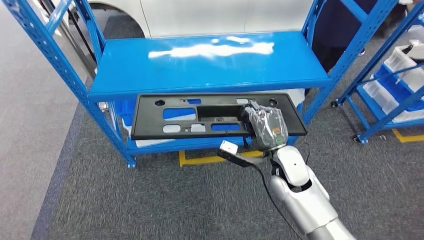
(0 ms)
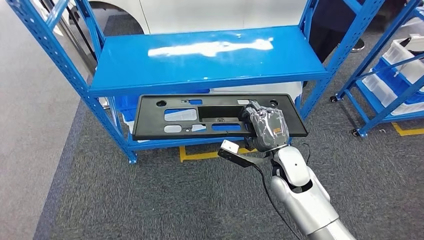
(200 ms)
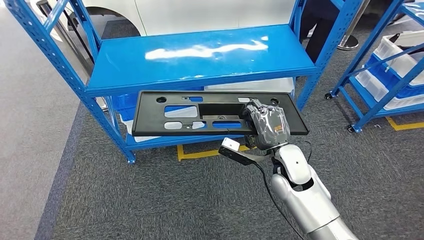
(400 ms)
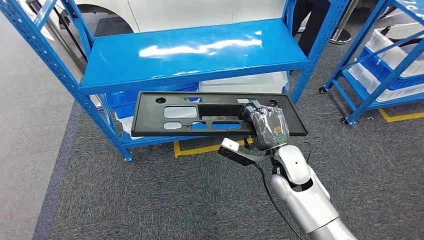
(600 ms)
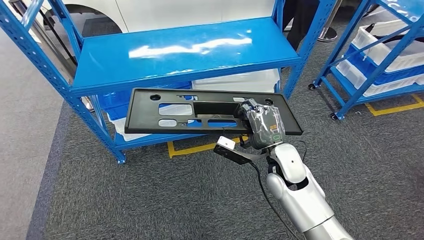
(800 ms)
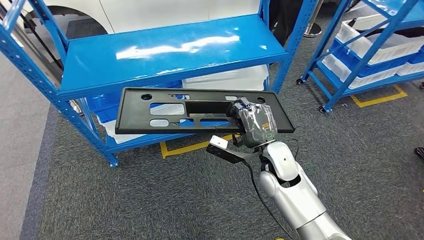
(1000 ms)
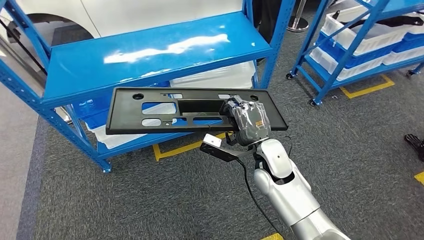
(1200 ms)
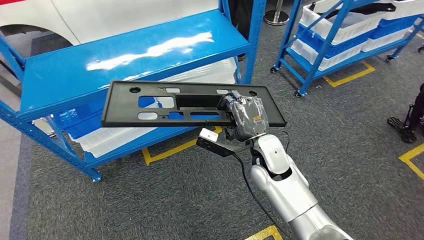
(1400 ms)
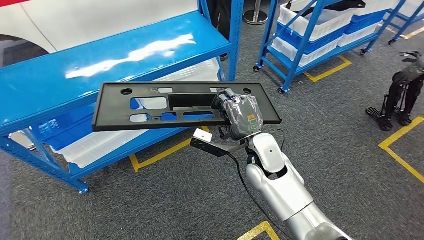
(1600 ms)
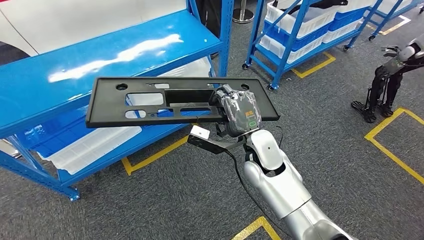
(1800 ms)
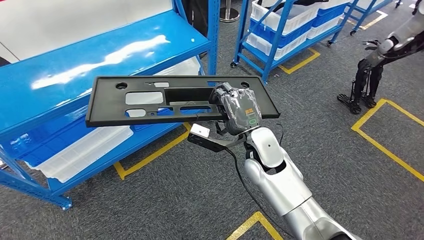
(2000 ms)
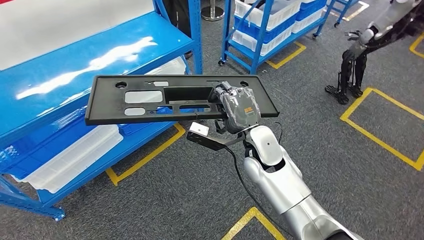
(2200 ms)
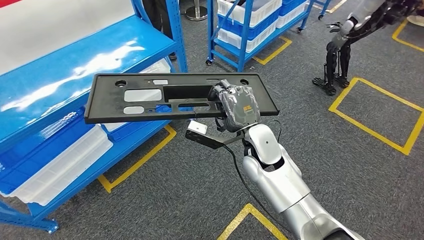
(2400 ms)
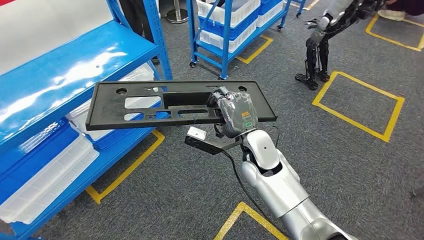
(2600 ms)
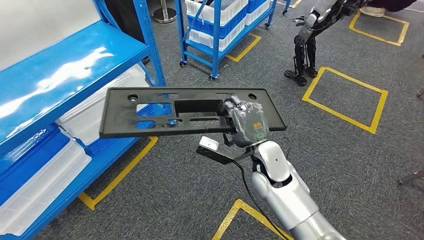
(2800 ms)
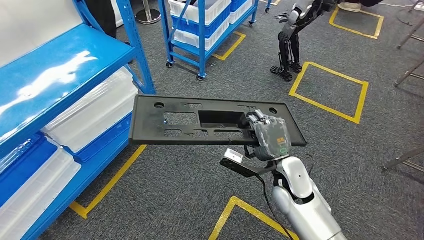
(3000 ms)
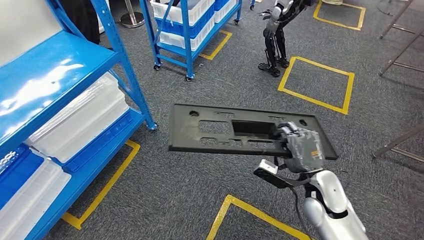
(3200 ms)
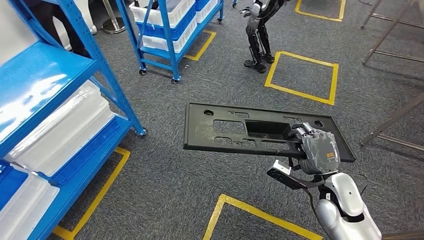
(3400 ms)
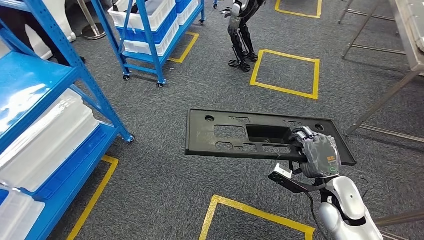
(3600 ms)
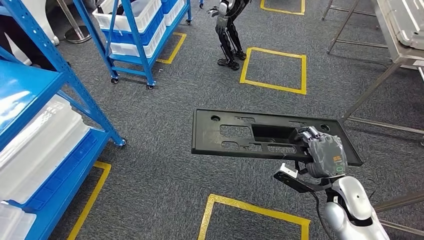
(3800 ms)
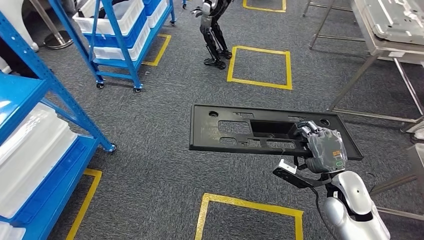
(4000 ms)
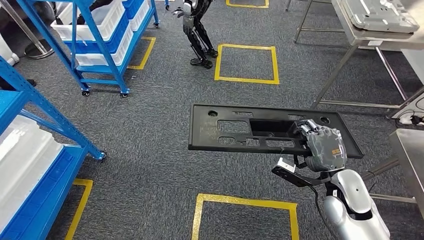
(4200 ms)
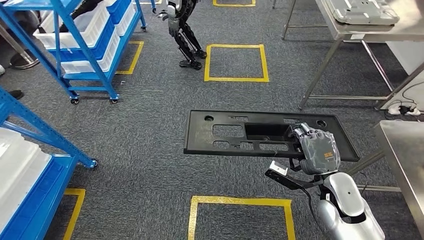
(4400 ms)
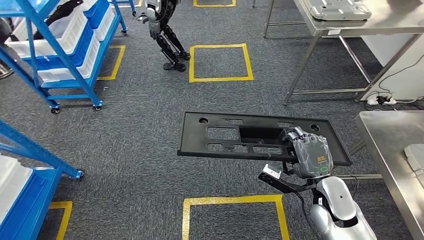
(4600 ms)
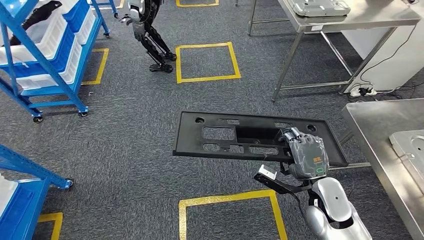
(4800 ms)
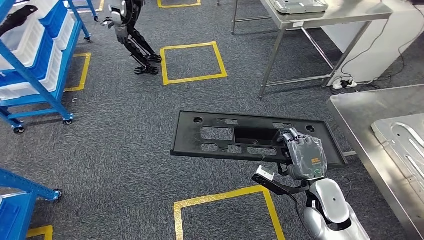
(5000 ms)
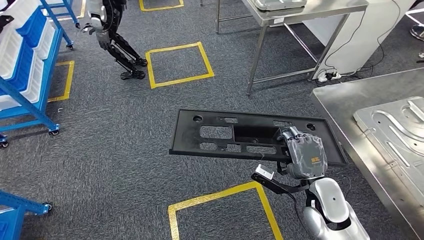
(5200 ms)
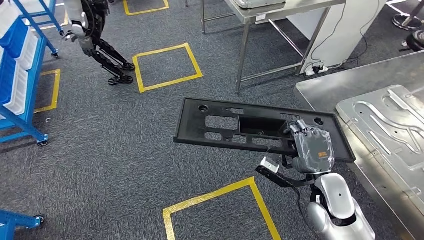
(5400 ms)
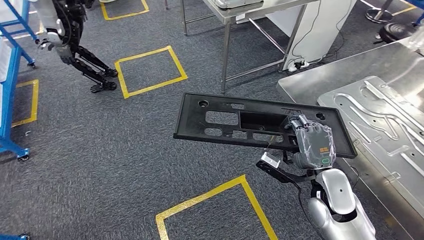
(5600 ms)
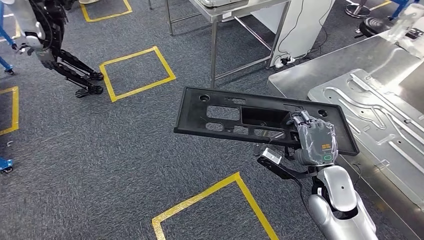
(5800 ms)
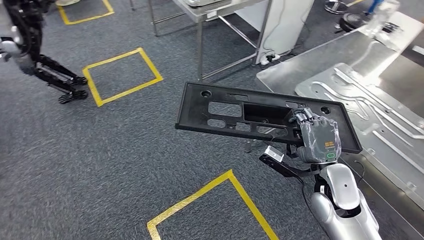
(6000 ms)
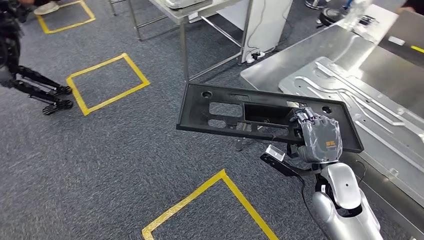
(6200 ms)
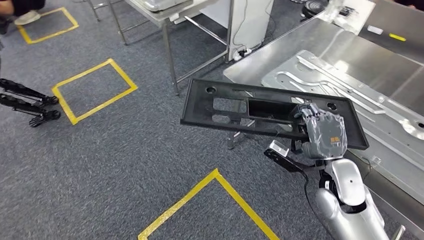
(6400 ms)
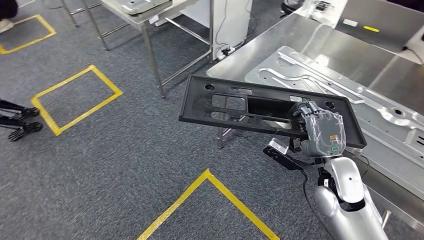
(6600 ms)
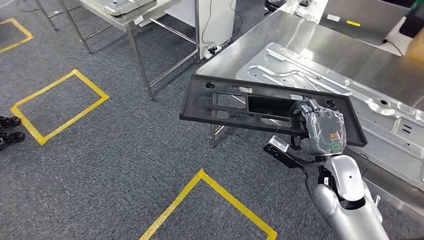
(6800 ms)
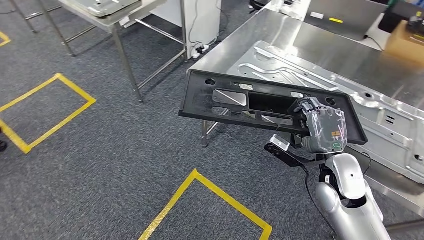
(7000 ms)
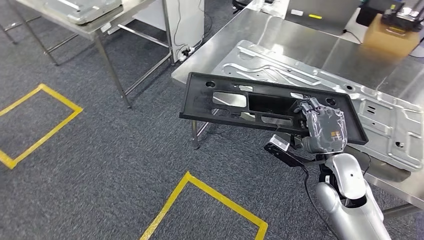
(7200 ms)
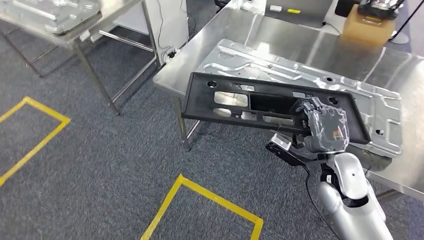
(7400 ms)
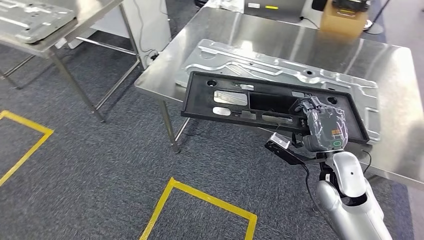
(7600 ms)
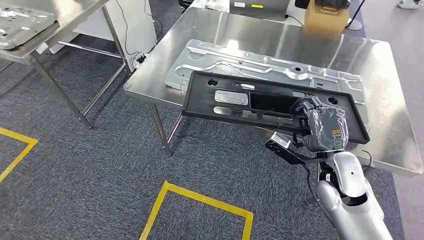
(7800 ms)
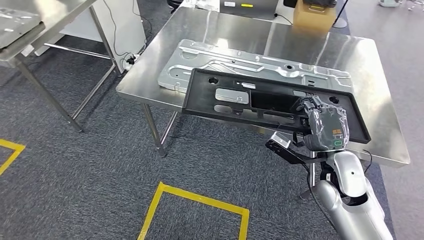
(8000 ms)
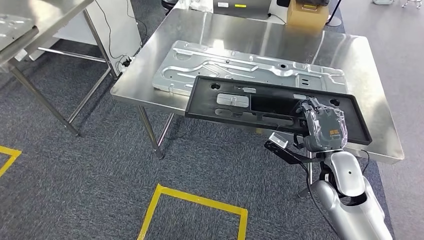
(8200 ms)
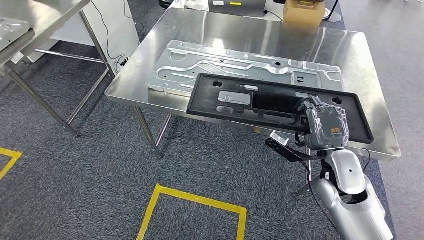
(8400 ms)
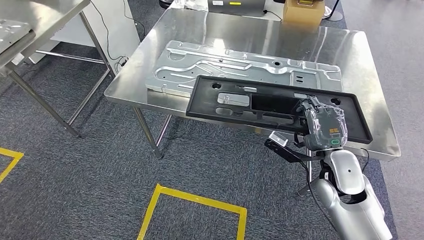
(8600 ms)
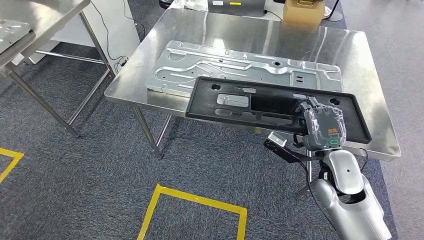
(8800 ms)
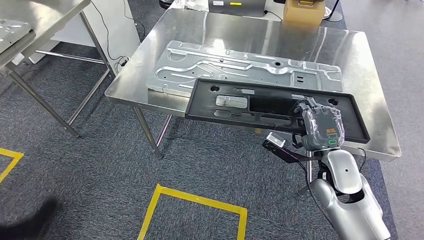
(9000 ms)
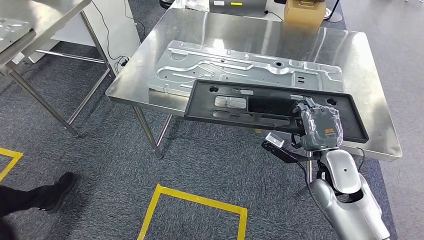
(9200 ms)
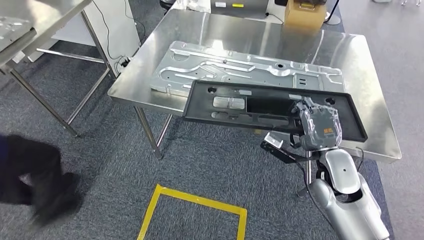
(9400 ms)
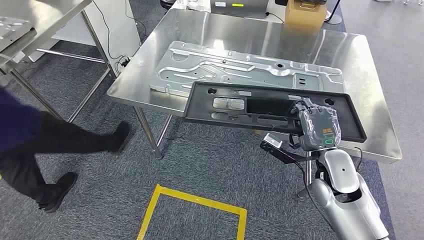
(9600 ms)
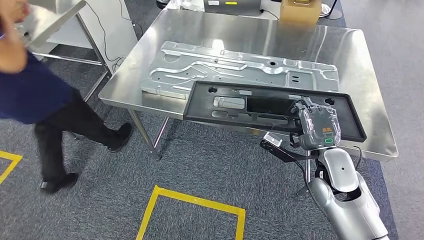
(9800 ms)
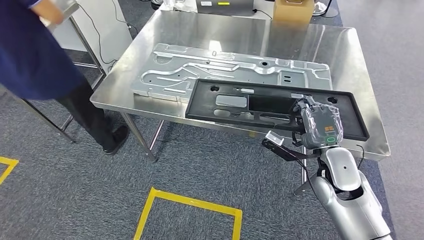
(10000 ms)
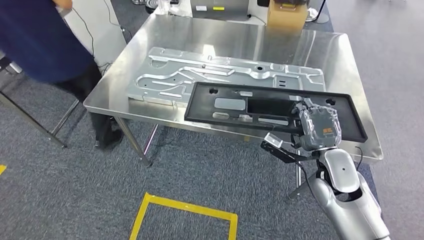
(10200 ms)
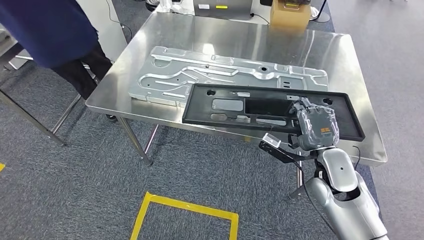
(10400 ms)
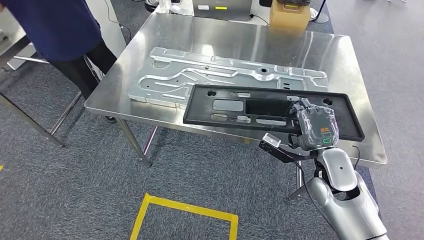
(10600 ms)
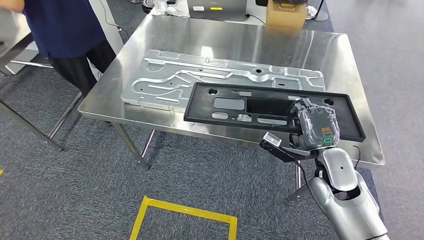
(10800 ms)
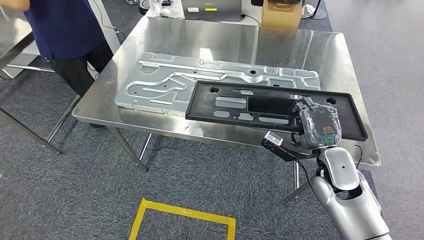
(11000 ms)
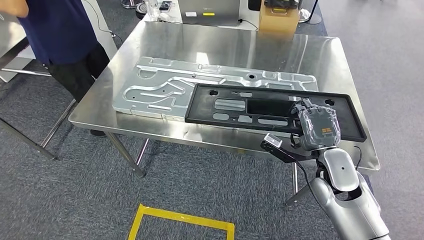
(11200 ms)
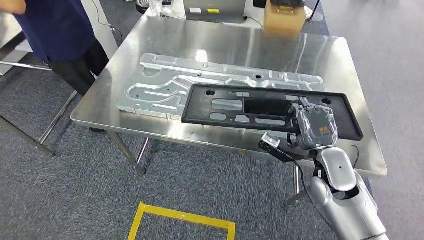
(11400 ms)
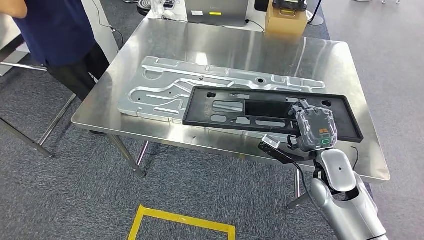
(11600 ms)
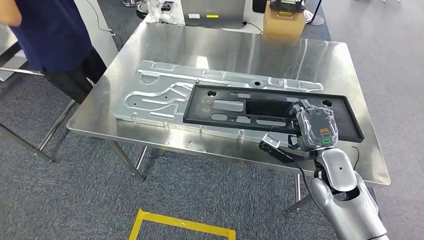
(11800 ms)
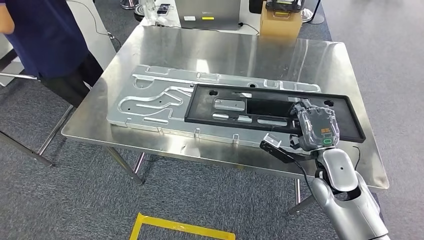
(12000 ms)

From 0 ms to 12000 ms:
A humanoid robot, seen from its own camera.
Step, from 5400 ms to 8600 ms: Move the large material to the workbench.

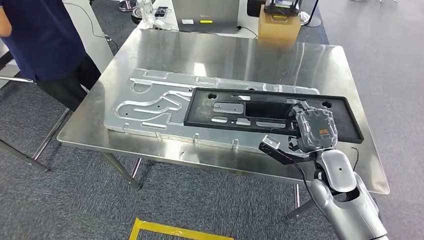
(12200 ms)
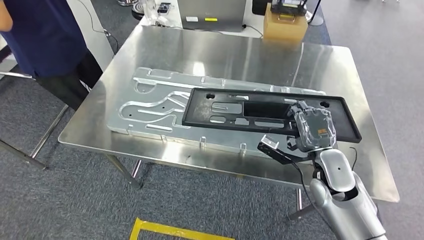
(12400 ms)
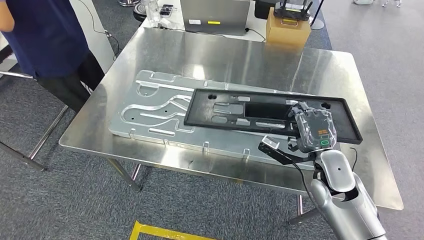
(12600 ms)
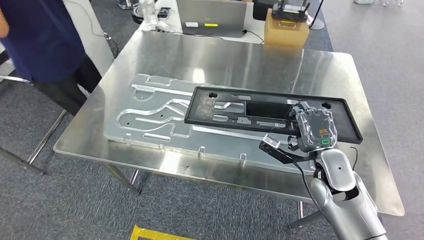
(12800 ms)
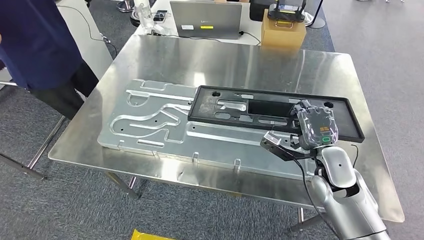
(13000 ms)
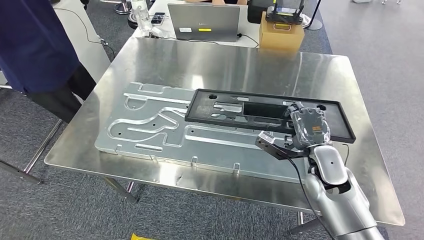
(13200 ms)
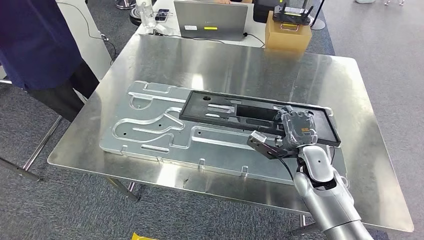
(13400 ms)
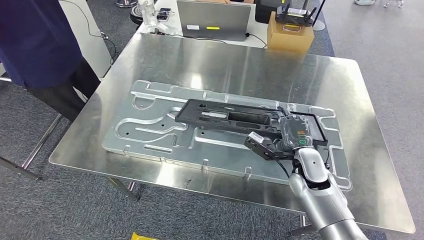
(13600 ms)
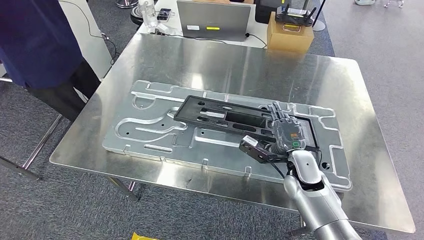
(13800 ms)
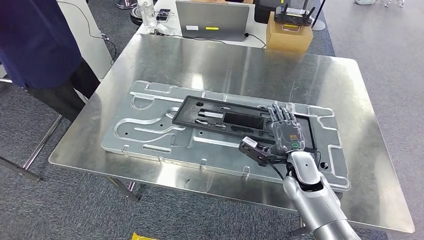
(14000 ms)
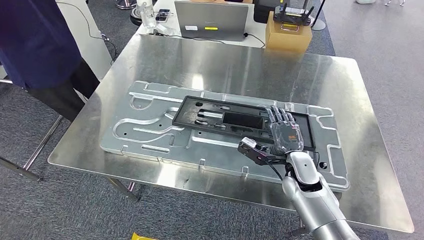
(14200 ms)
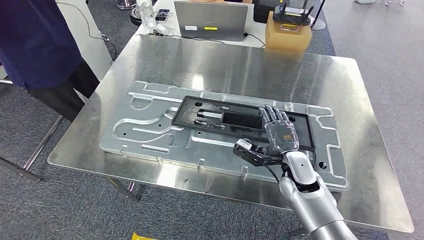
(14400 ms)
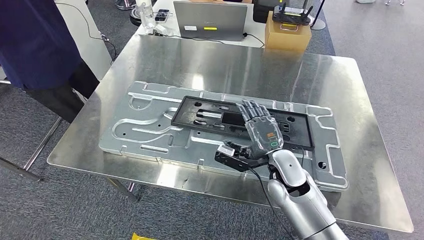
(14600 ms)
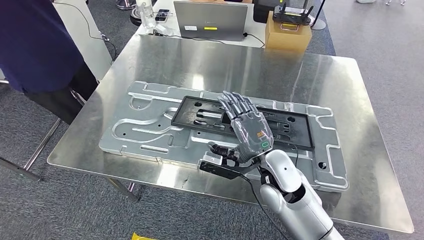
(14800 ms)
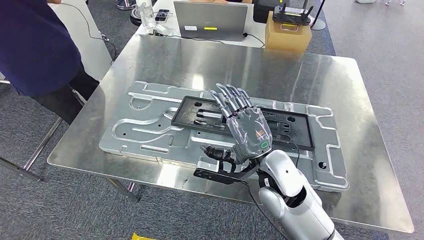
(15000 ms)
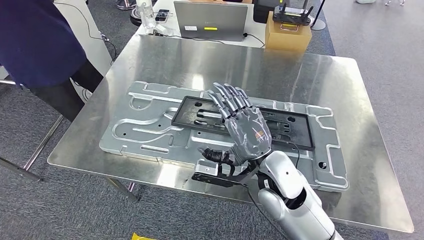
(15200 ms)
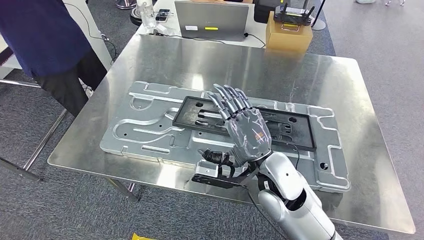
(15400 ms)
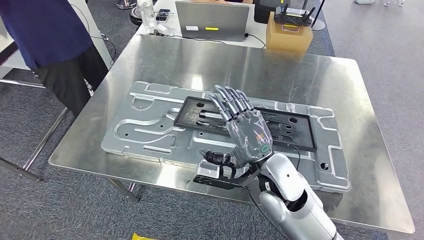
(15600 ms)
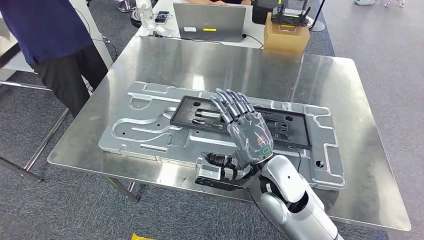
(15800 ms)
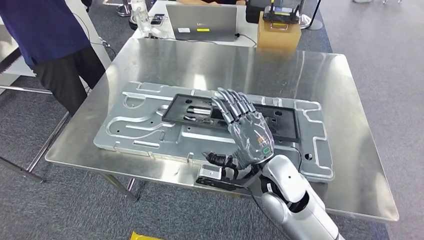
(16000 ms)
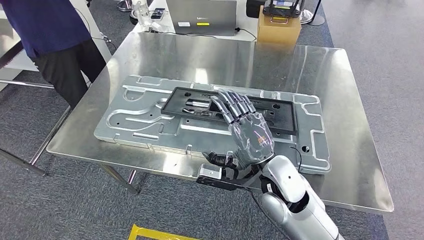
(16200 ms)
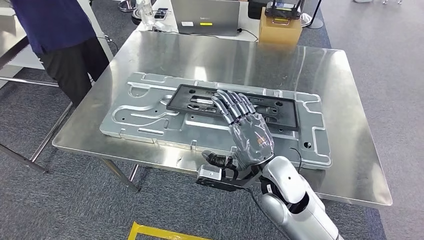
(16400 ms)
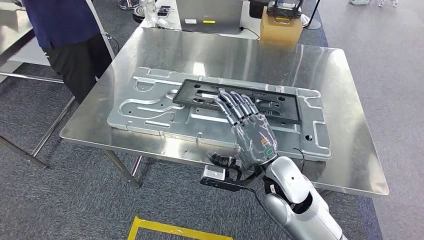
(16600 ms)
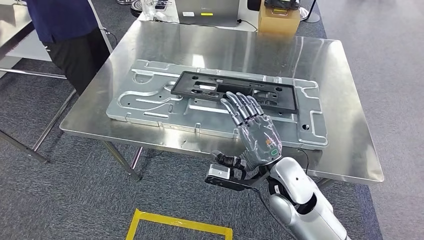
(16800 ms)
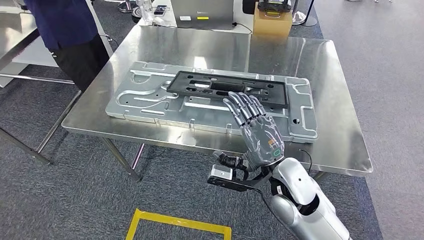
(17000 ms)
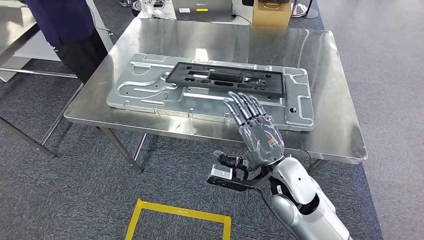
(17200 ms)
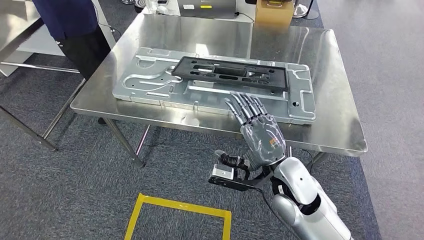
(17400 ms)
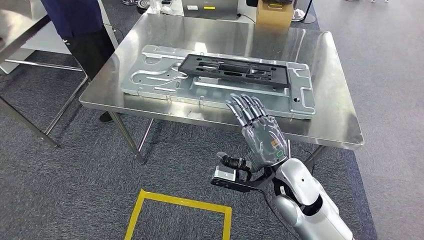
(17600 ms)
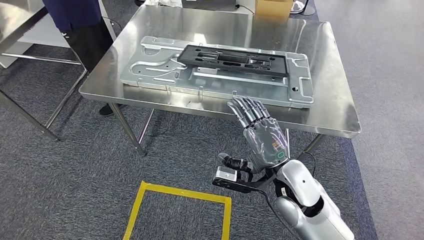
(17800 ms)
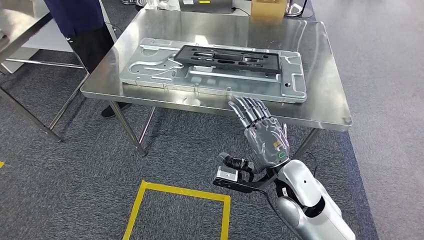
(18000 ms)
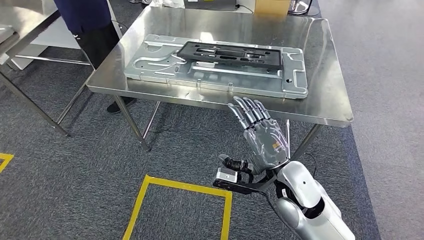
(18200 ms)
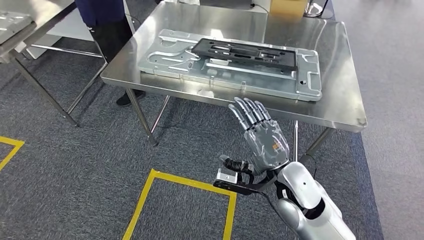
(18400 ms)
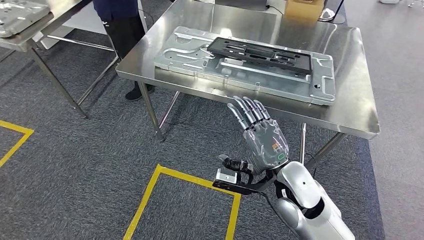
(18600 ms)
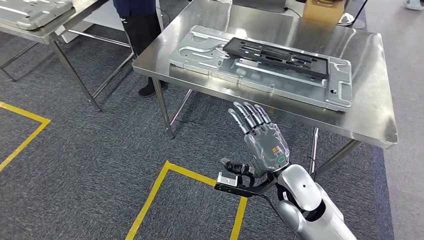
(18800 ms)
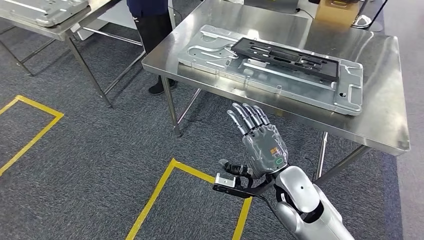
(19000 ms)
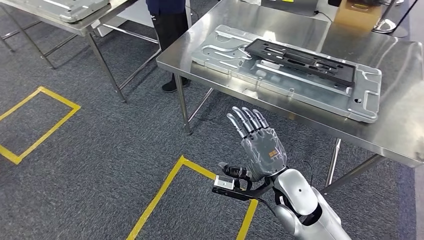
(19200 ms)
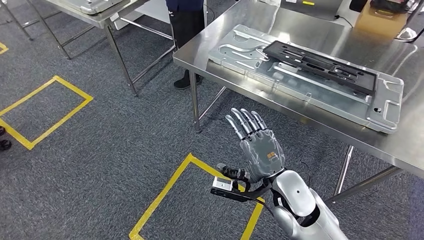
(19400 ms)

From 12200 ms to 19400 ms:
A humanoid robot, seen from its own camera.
Step, from 12200 ms to 16400 ms: Insert the large material into the corresponding slot on the workbench.
From 13600 ms to 15000 ms: The right hand goes about 15 cm to the left, upward and backward.
